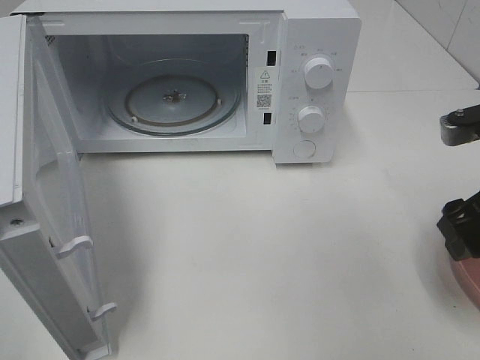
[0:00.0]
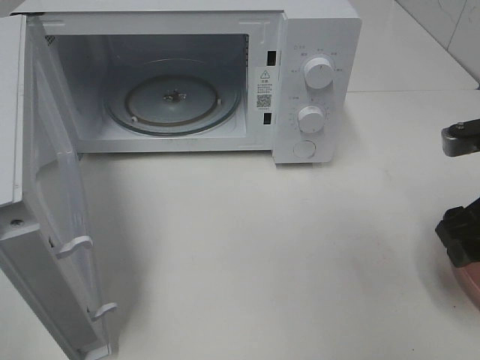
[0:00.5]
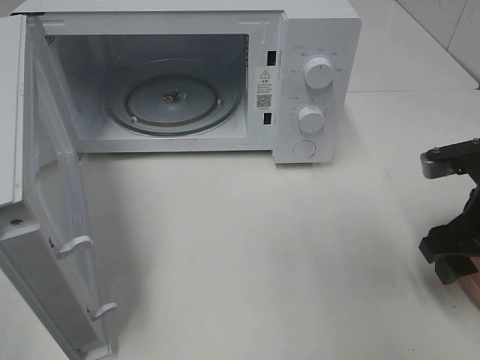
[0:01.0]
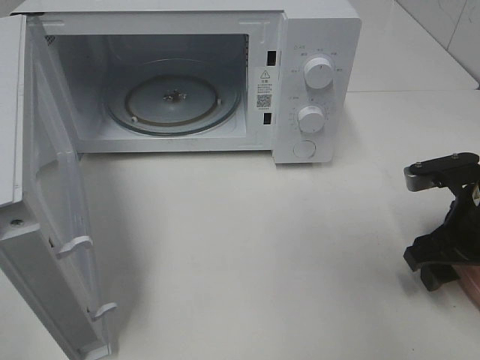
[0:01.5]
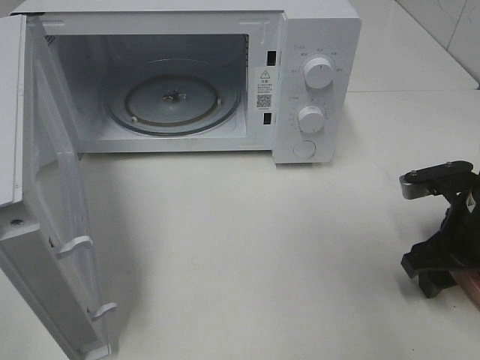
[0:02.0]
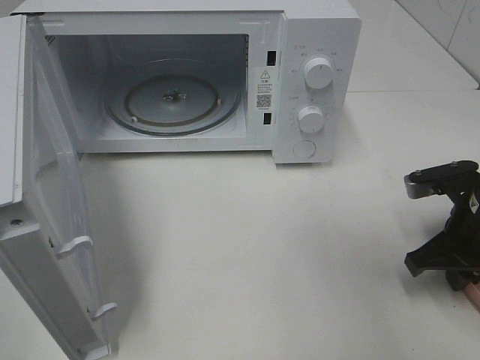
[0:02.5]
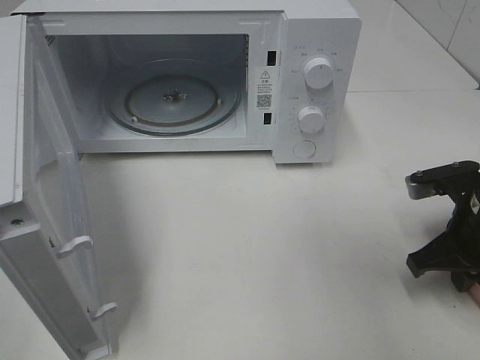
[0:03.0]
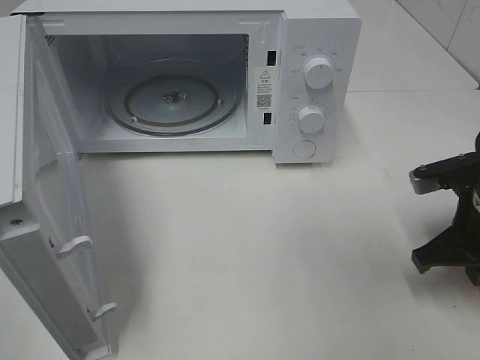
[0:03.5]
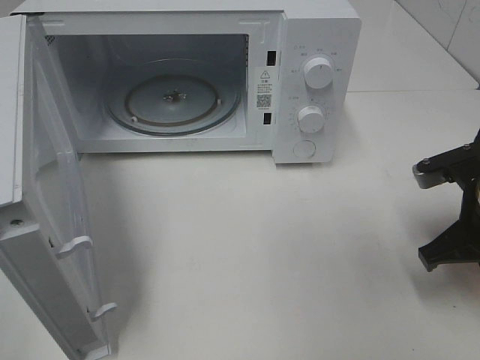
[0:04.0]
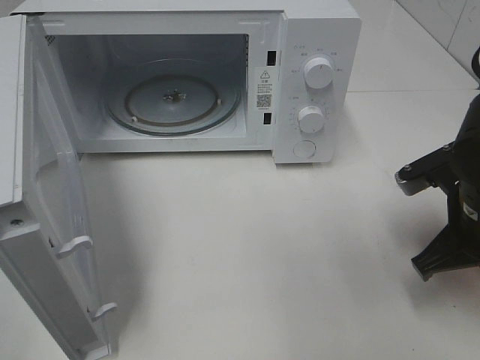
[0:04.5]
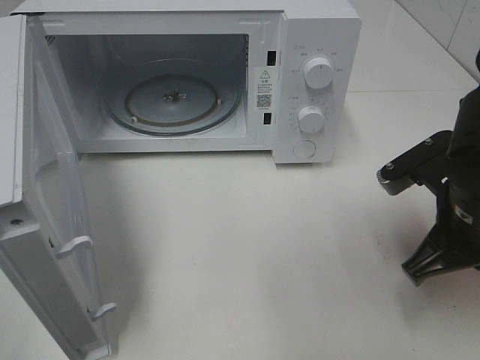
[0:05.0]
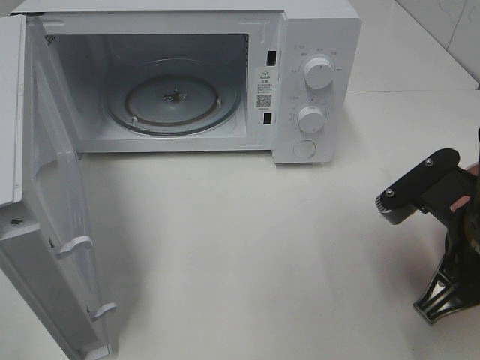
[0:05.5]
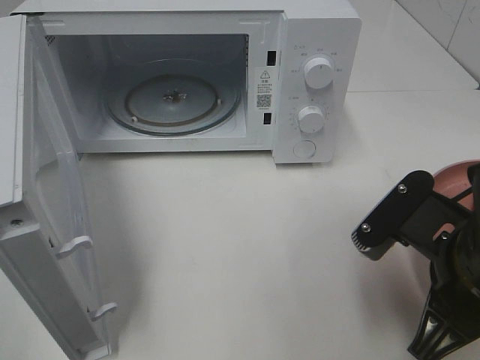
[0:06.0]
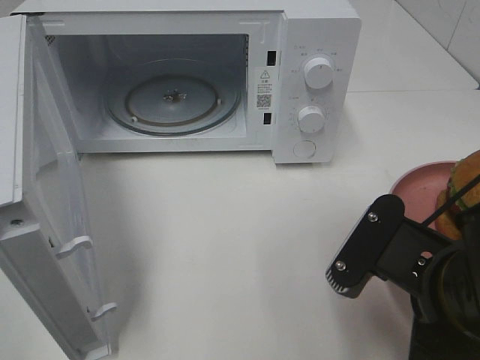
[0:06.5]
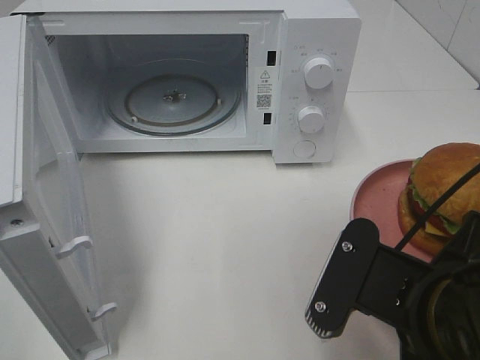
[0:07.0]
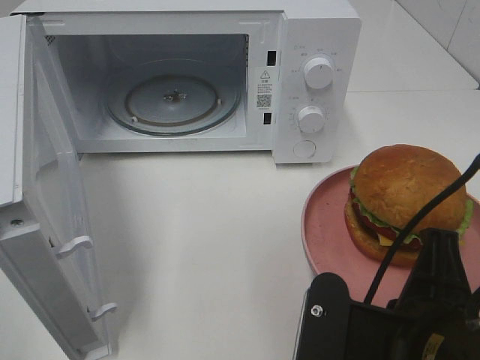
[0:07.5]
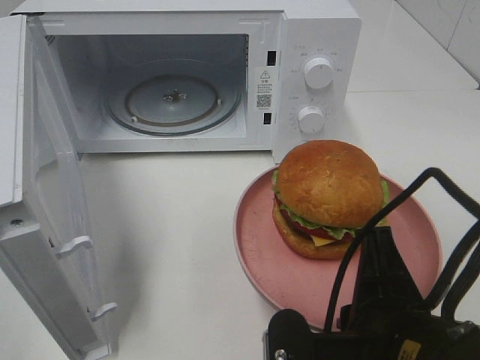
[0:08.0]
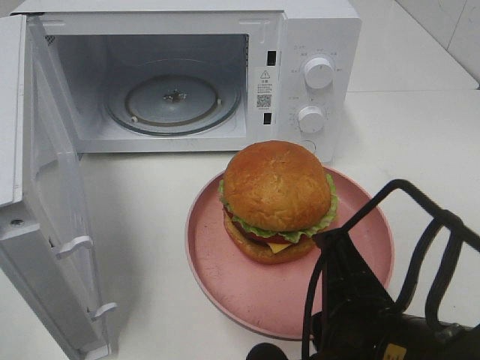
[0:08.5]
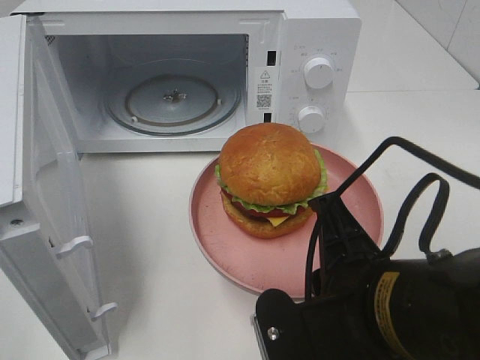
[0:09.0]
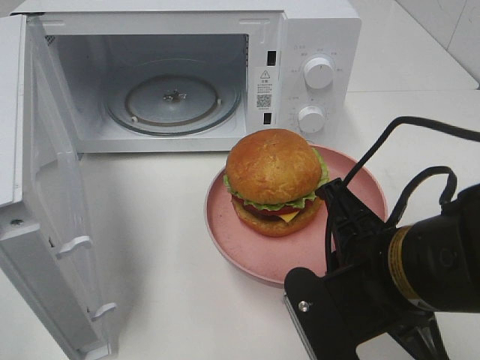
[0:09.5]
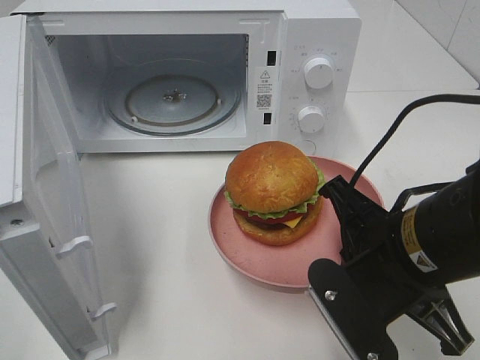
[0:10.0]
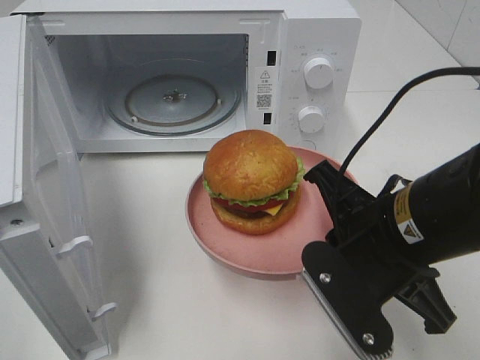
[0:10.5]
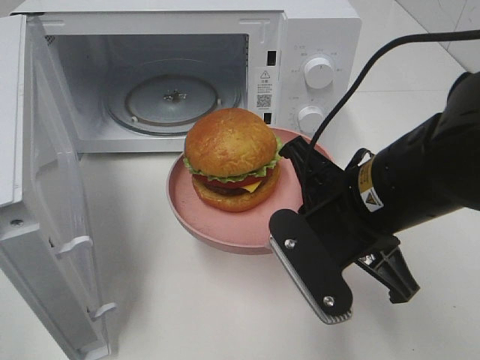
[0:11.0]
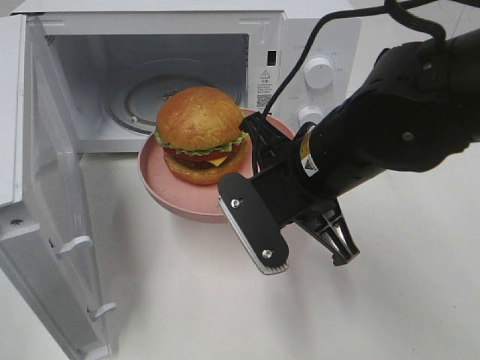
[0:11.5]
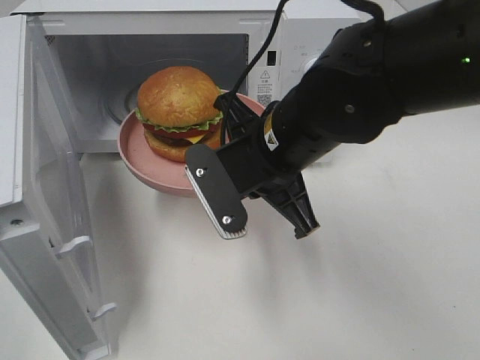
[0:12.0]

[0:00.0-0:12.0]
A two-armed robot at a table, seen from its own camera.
Task of the whole recording: Heat the burger.
Step, 0:00.0 to 0:03.0: Right hand: grab the plate with the hamburger.
0:00.0 to 0:02.0: The right gripper moves downward, about 10 cm.
0:02.0 to 0:04.0: The right gripper closes up.
0:04.0 to 0:06.0: The right gripper shifts some 10 cm backward and to the left.
0:06.0 to 0:08.0: The right gripper travels backward and to the left by roughly 10 cm.
0:08.0 to 0:10.0: The right gripper goes about 10 cm forward.
0:10.0 to 0:12.0: The right gripper is displaced forward and to the left by approximately 15 cm.

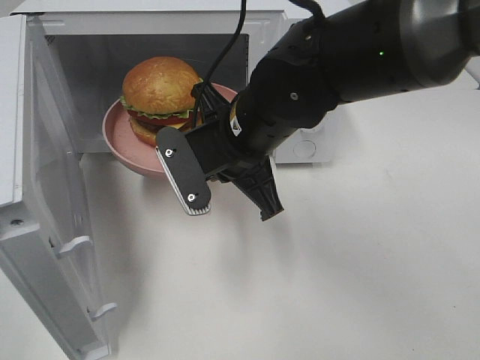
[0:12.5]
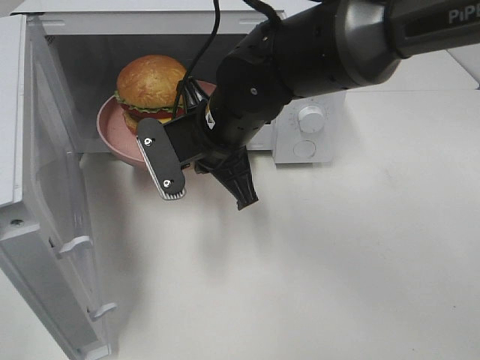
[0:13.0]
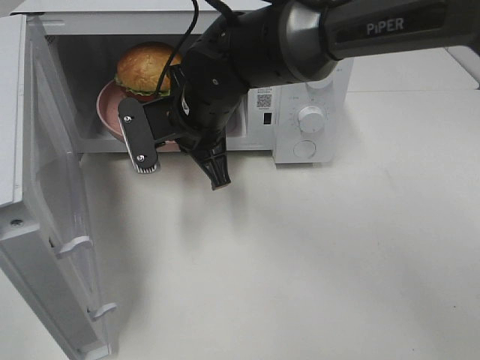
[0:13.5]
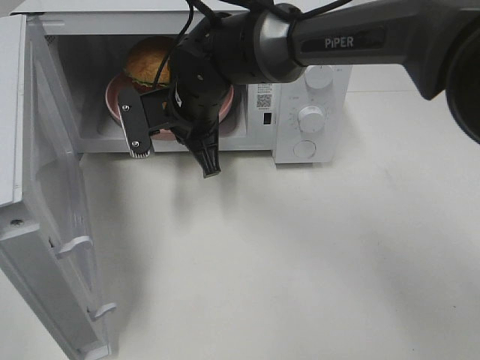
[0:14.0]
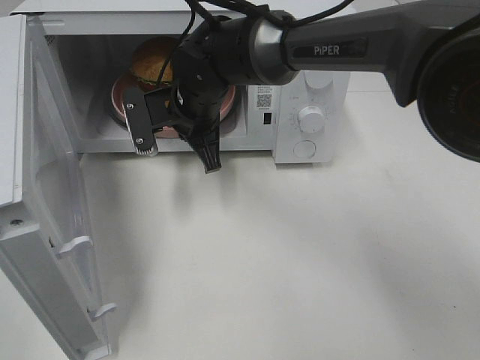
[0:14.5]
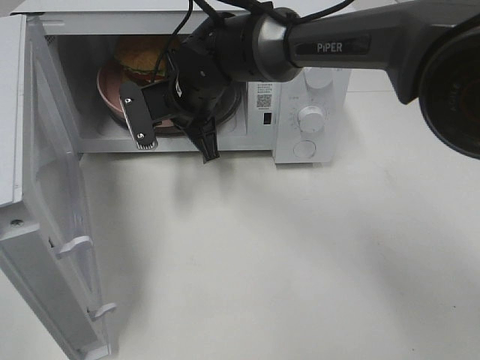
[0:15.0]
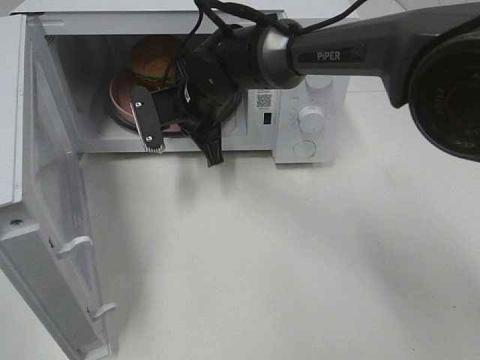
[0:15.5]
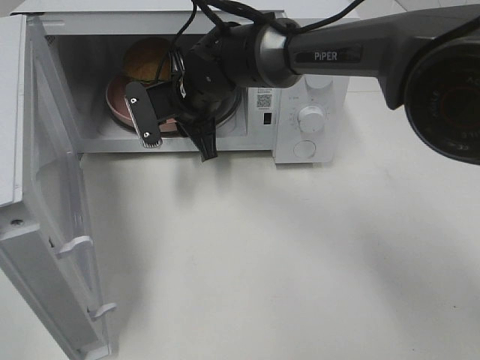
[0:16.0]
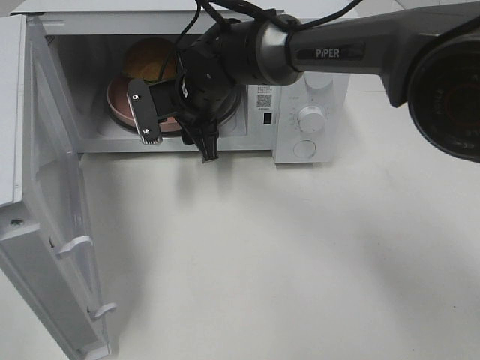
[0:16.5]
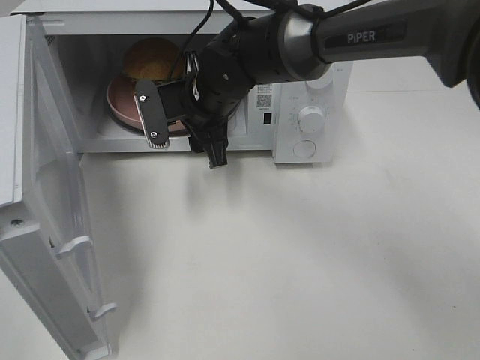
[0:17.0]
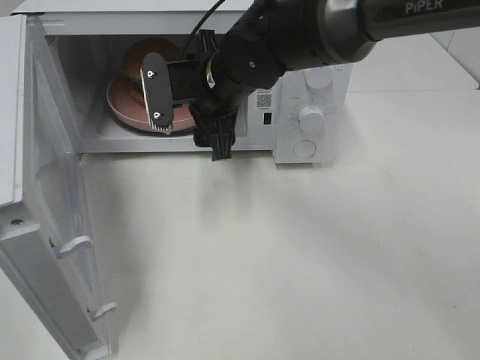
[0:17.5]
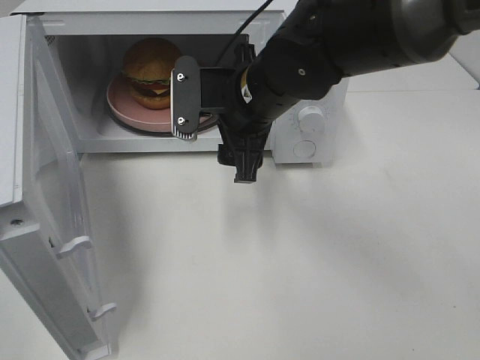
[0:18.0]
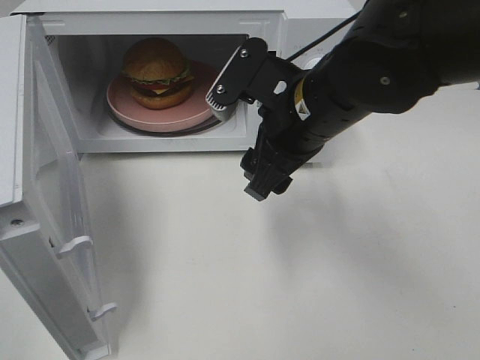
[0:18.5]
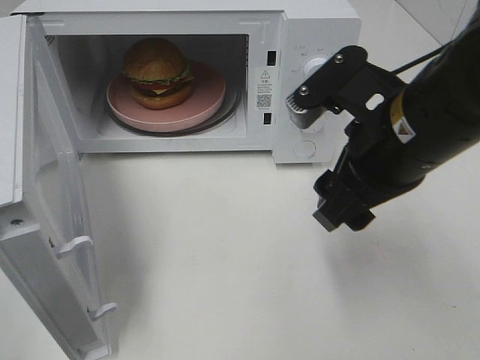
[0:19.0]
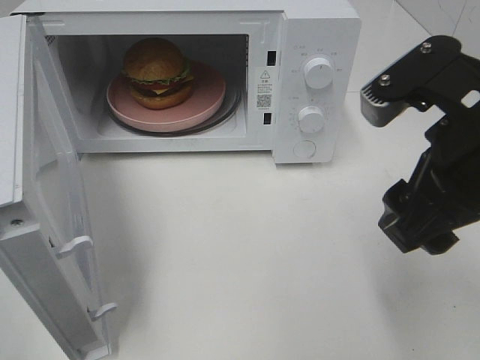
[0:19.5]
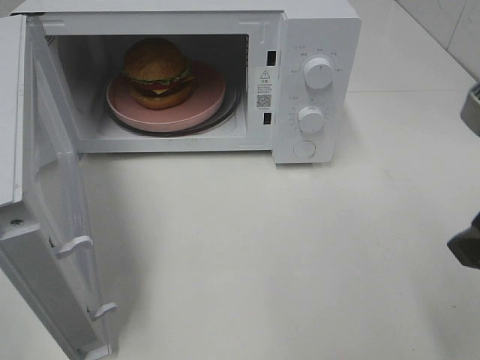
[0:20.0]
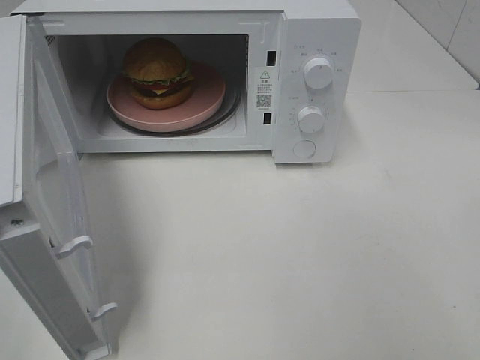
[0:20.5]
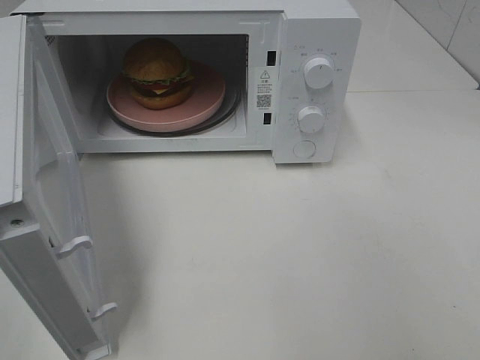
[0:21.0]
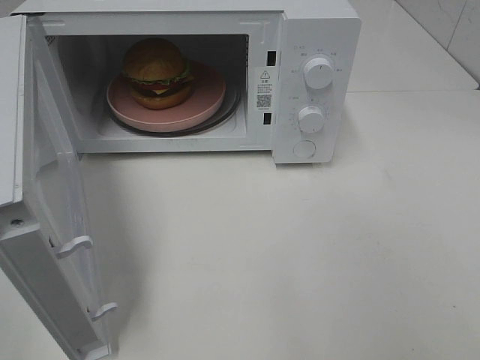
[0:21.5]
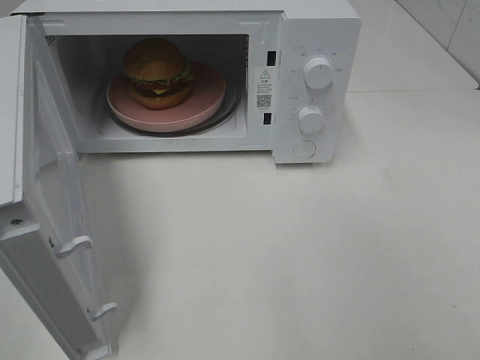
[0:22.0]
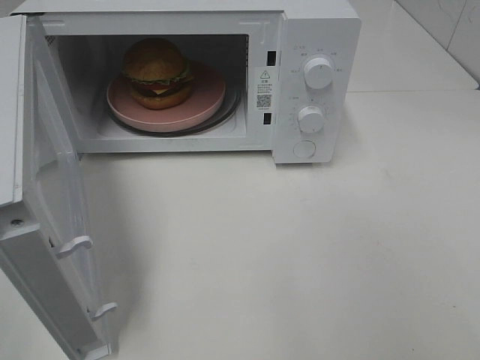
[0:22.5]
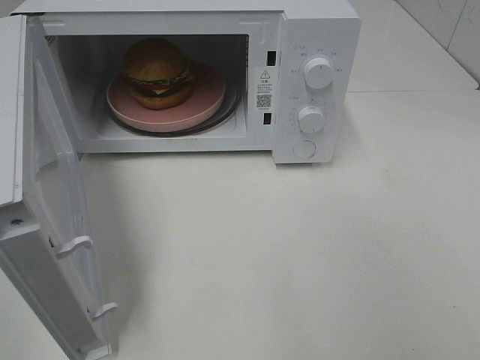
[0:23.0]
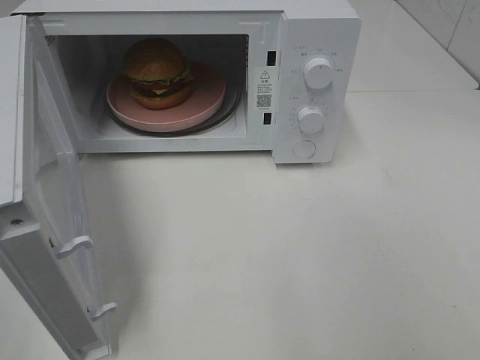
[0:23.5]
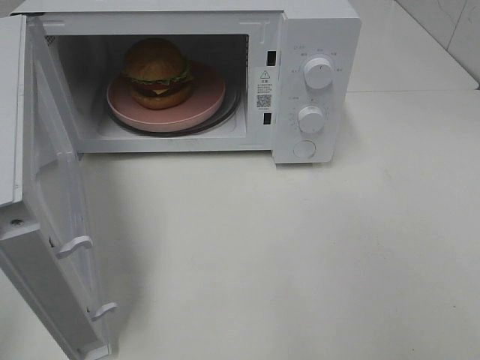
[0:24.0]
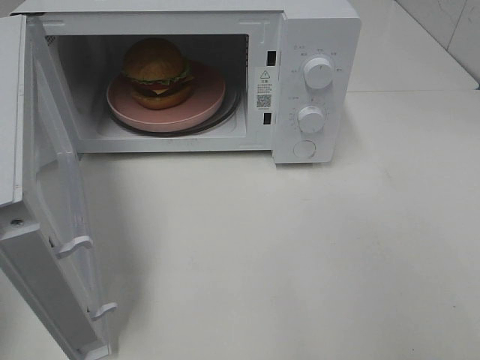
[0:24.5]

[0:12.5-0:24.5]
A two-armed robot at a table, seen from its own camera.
Task of the whole recording: Heat the burger.
Step, 0:12.5 to 0:16.0: Right hand: place the plate in the microwave.
0:12.5 to 0:14.5: The right gripper travels forward and to the left by some 10 cm.
0:14.5 to 0:16.5: The right gripper opens.
0:16.5 to 0:18.5: The right gripper heads backward, to the right and upward, covering about 20 cm.
0:18.5 to 0:20.5: The right gripper moves to the right and backward, some 25 cm.

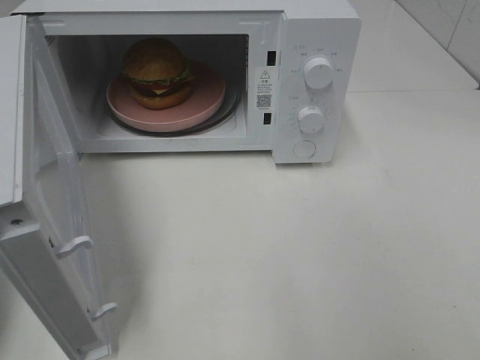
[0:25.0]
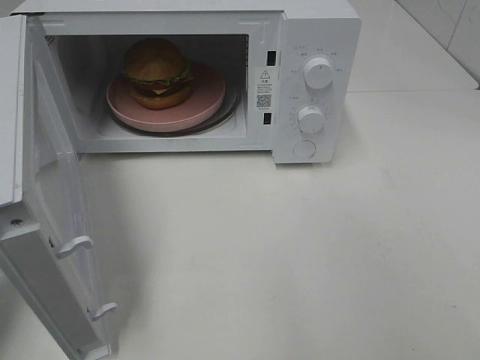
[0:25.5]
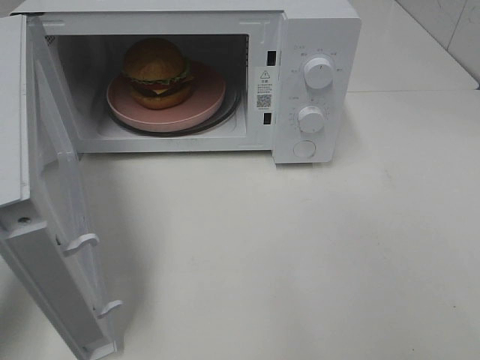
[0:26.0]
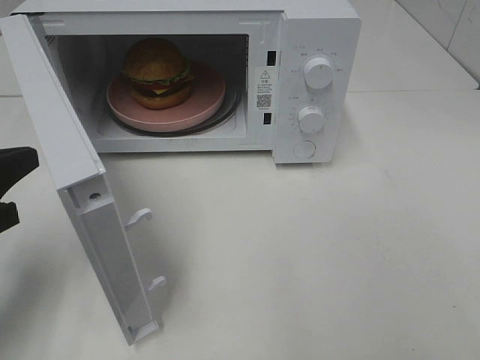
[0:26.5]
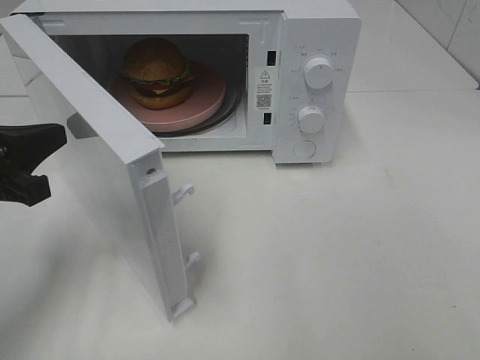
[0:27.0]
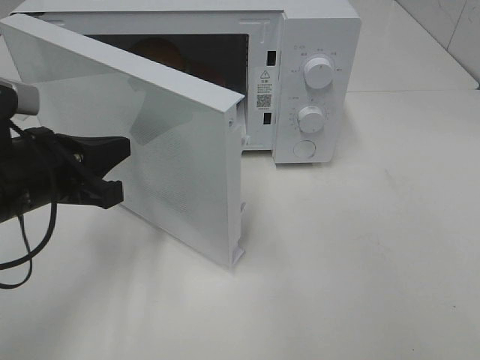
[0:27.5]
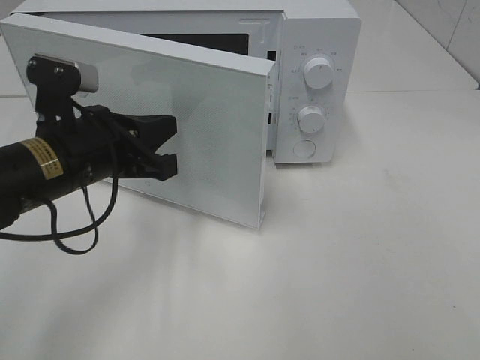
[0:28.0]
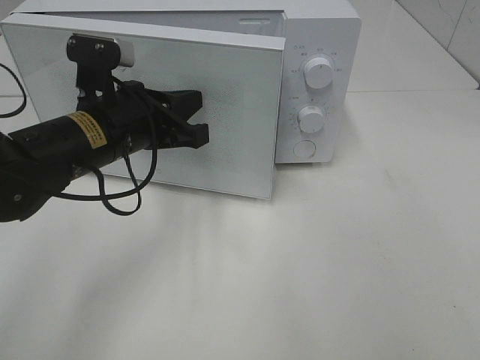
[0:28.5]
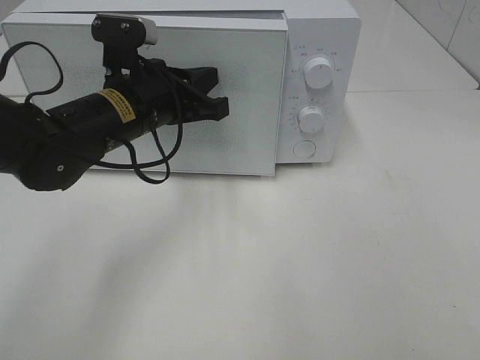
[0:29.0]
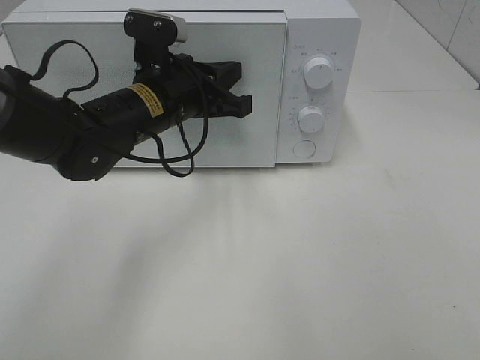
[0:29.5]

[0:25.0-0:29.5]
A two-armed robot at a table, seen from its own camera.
Task of the whole recording: Heat the burger.
0:25.0 to 0:27.0: The left gripper travels forward, to the right and downward by approximately 15 cm.
0:27.0 to 0:29.5: The left gripper moves to the right and forward, approximately 20 cm.
